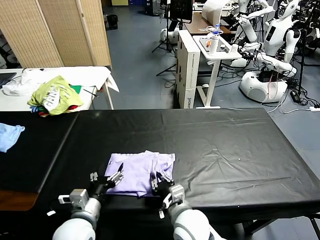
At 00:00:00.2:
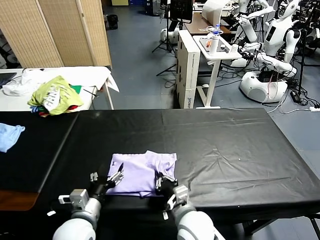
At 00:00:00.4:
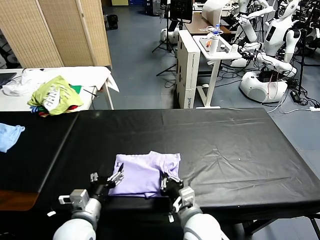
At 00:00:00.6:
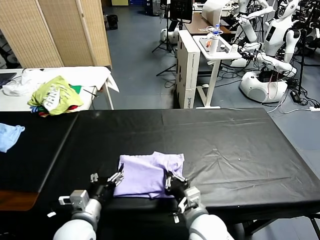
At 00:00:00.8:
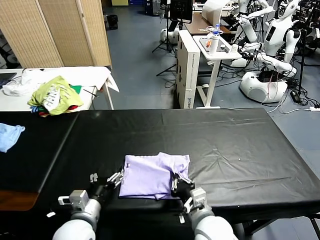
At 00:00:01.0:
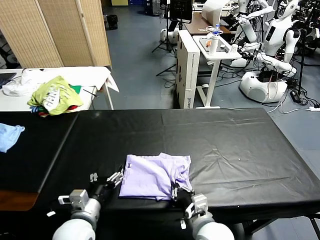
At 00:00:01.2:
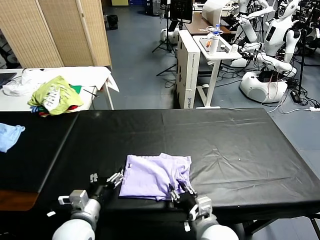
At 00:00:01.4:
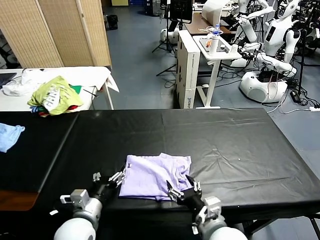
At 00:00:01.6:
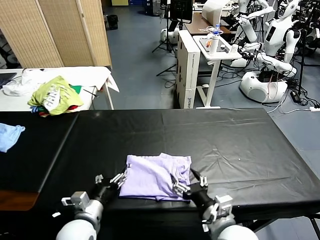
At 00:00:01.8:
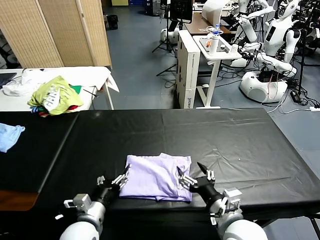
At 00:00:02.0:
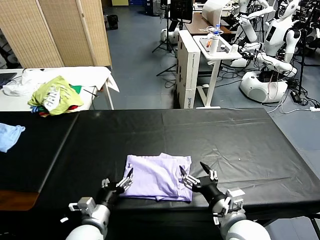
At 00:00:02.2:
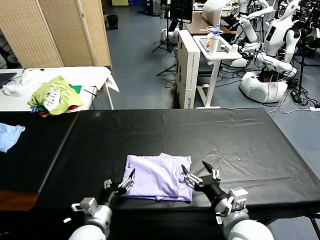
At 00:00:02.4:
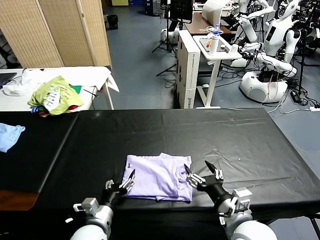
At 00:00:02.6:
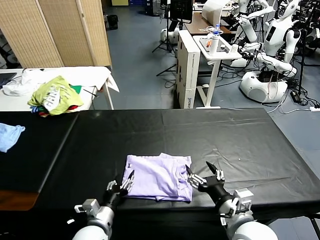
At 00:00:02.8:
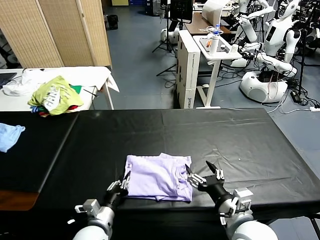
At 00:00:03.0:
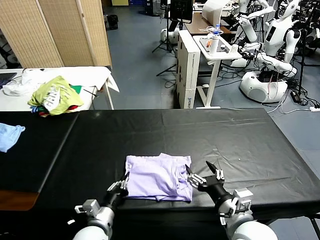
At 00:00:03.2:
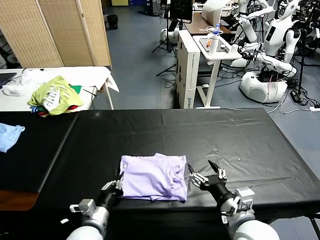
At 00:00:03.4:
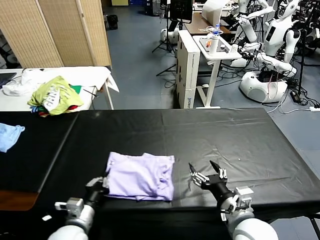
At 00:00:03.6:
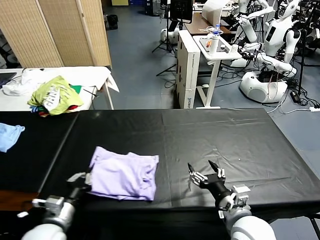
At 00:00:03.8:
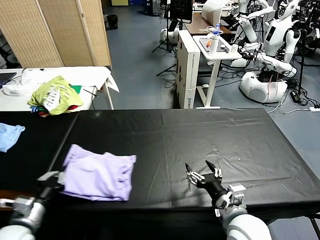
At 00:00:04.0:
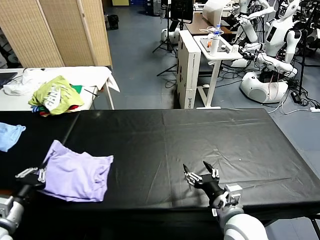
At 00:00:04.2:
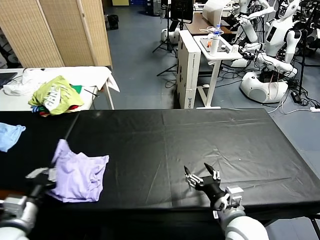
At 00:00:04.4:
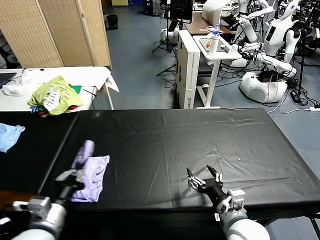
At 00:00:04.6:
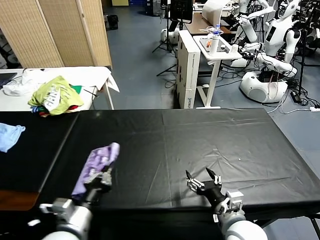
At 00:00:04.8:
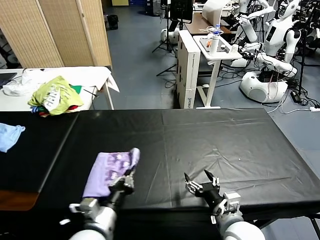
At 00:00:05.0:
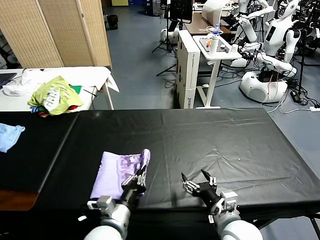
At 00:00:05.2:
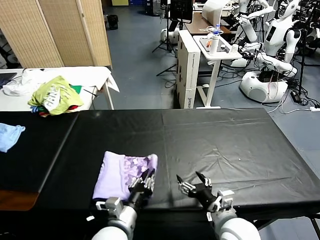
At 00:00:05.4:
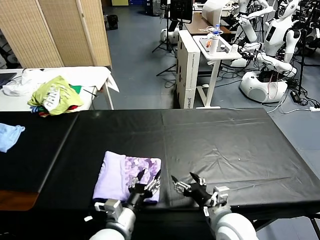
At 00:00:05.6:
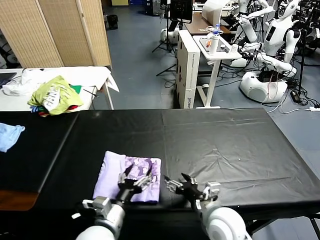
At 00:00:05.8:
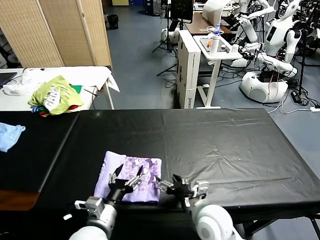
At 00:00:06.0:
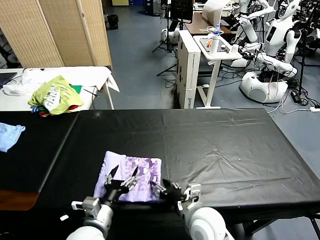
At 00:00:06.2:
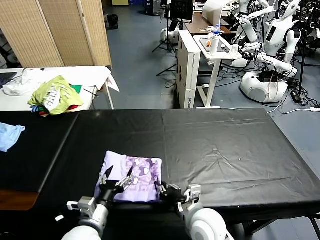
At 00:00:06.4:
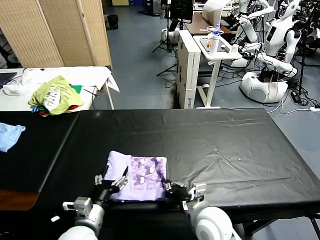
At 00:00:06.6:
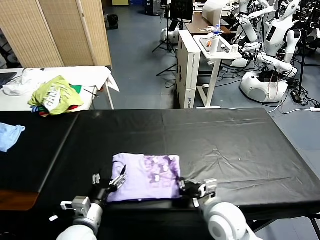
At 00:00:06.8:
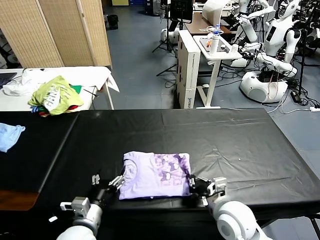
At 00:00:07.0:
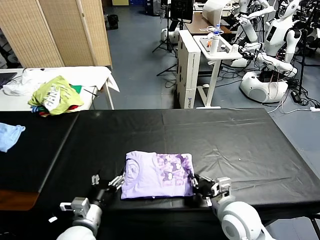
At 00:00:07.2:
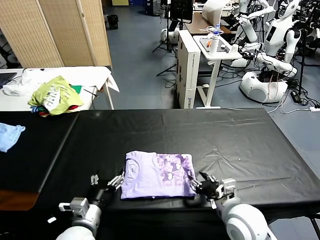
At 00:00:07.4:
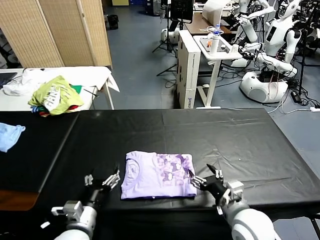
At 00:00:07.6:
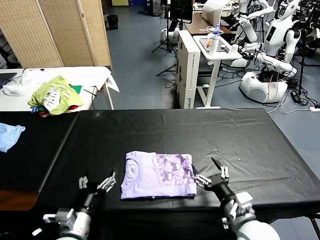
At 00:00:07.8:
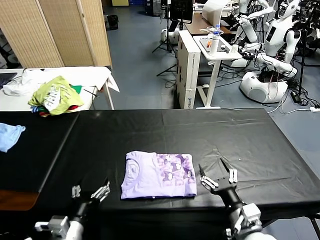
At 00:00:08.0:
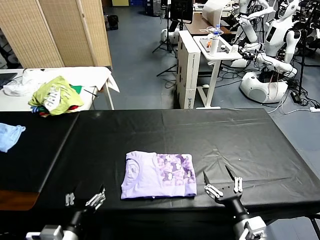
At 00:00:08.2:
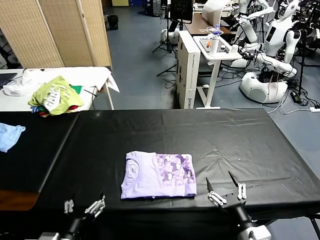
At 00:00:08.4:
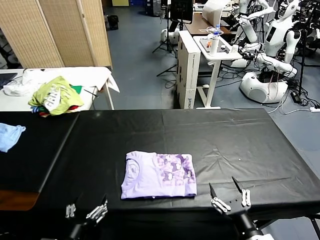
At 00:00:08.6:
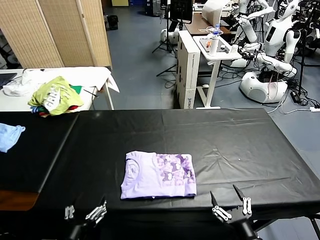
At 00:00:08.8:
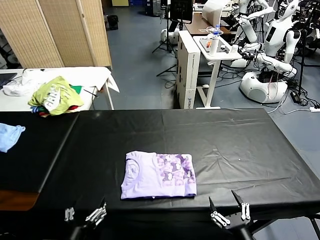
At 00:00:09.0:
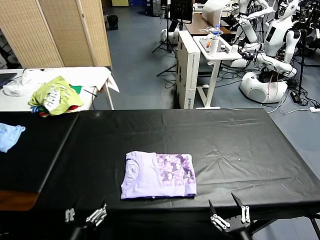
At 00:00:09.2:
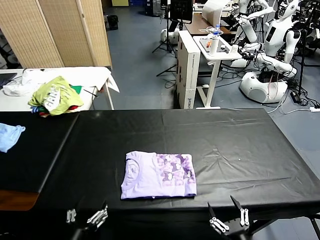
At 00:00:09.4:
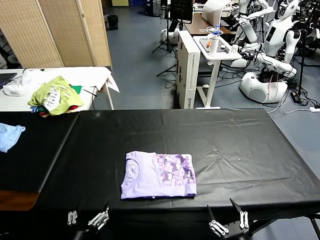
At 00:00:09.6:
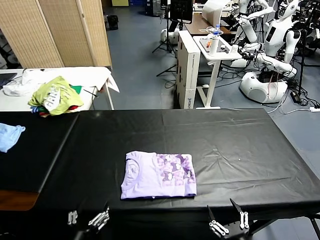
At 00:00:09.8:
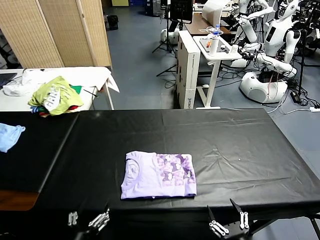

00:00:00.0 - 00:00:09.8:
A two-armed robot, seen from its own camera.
Task of the whole recording: fold and organize the clothes.
Step, 00:00:00.0 - 00:00:05.2: Flip the folded clothes over with left gripper.
Step, 00:00:05.4 - 00:00:07.2: Drag the clothes to the center of the table.
00:00:00.0 - 00:00:01.4: The right gripper heads to the right and backward, covering roughly 10 cm, and opens its fingers.
00:00:01.4 - 00:00:02.8: The right gripper moves some 5 cm; the left gripper moves downward, about 5 cm, and closes its fingers.
00:00:02.8 - 00:00:04.2: The left gripper heads to the left and upward, covering some 20 cm.
00:00:04.2 - 00:00:05.6: The left gripper shifts approximately 20 cm to the right, and opens up.
00:00:05.6 - 00:00:07.0: The right gripper closes its fingers. The left gripper travels to the left by roughly 5 cm.
00:00:07.0 - 00:00:08.4: The left gripper heads backward and upward, covering some 10 cm, while the right gripper goes about 15 cm backward and to the right, and opens up.
00:00:08.4 - 00:00:09.8: The right gripper is displaced backward by about 5 cm.

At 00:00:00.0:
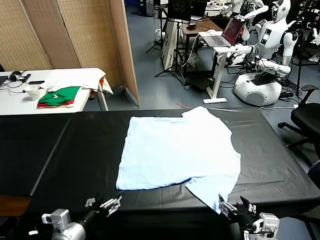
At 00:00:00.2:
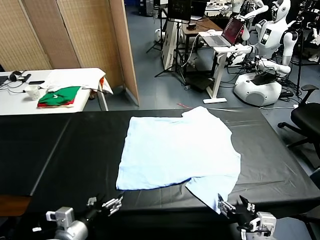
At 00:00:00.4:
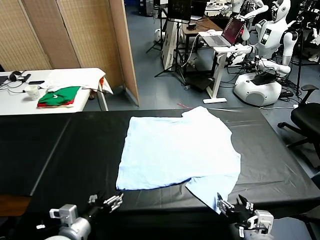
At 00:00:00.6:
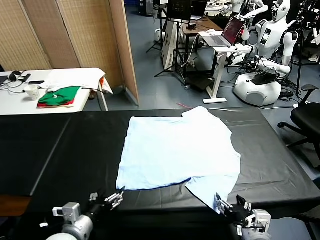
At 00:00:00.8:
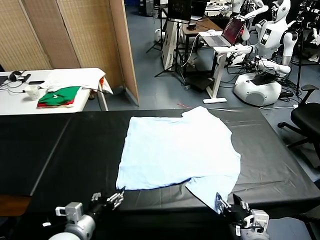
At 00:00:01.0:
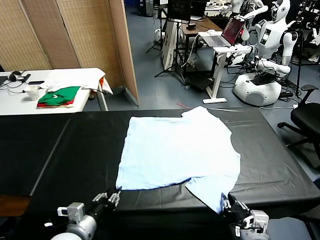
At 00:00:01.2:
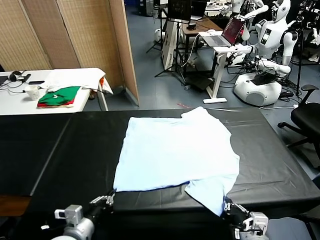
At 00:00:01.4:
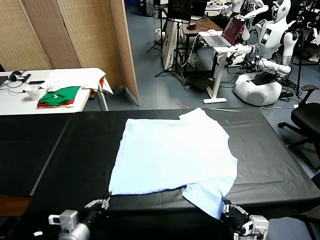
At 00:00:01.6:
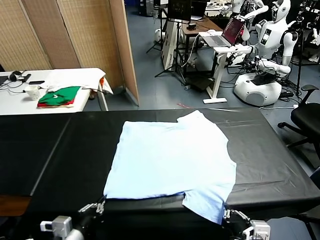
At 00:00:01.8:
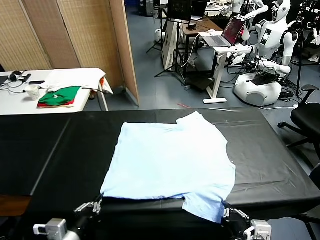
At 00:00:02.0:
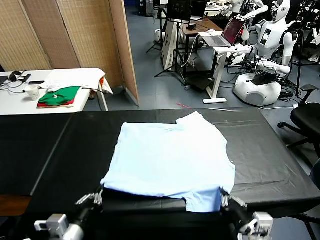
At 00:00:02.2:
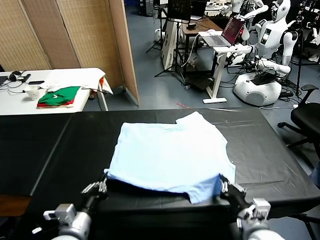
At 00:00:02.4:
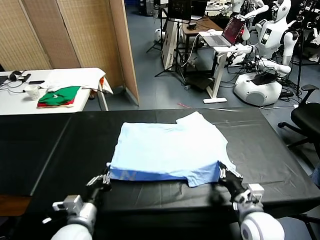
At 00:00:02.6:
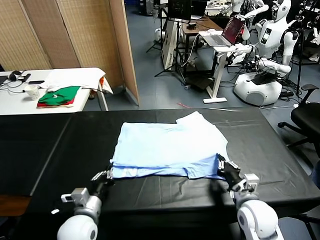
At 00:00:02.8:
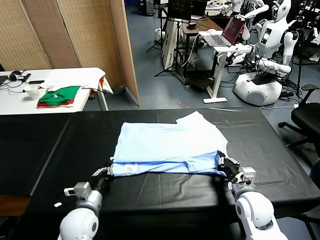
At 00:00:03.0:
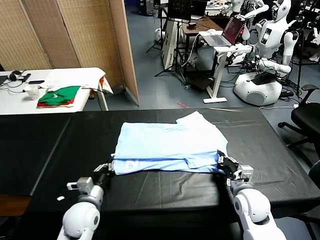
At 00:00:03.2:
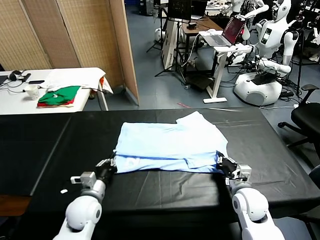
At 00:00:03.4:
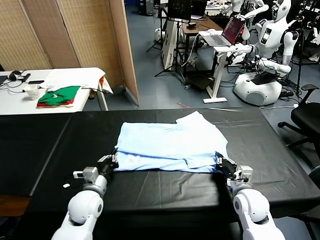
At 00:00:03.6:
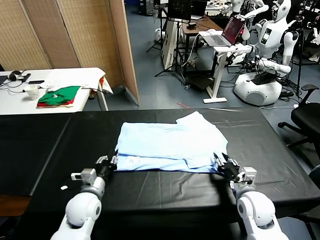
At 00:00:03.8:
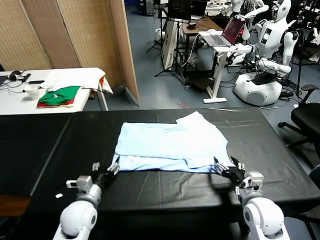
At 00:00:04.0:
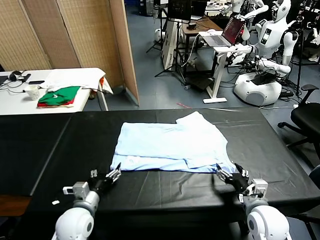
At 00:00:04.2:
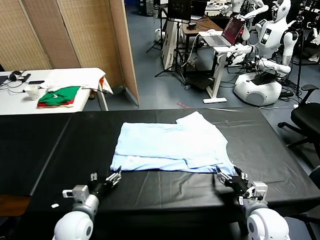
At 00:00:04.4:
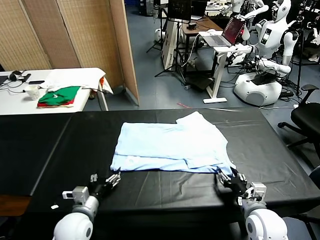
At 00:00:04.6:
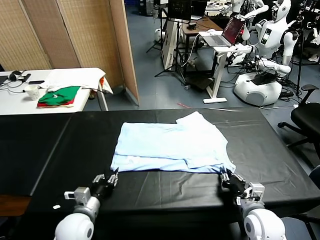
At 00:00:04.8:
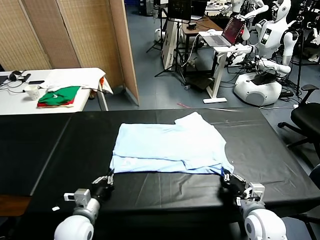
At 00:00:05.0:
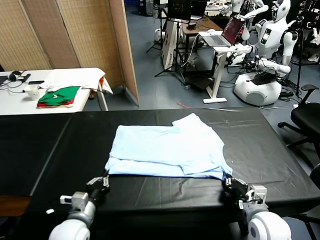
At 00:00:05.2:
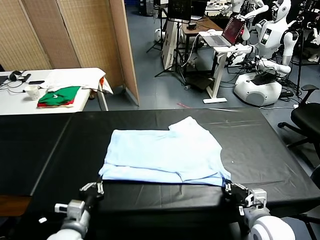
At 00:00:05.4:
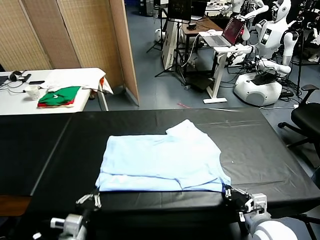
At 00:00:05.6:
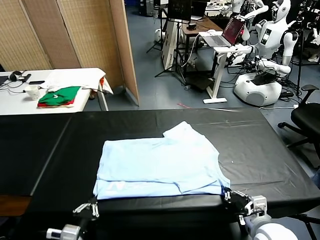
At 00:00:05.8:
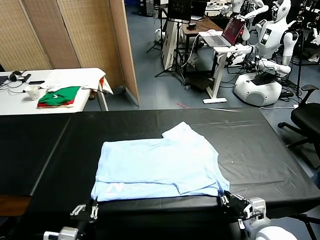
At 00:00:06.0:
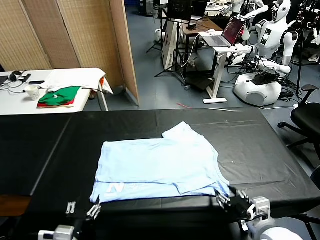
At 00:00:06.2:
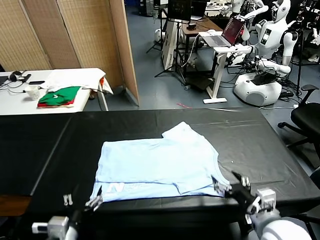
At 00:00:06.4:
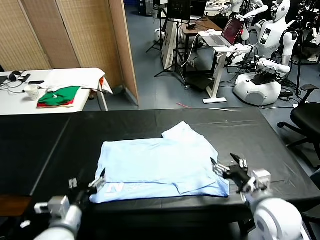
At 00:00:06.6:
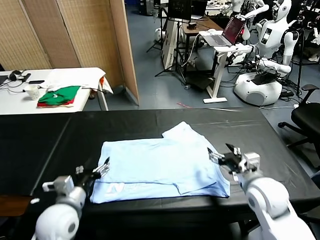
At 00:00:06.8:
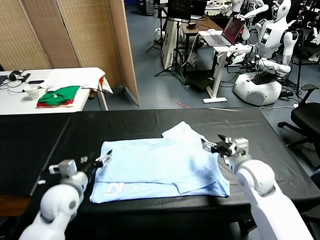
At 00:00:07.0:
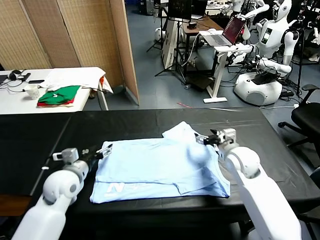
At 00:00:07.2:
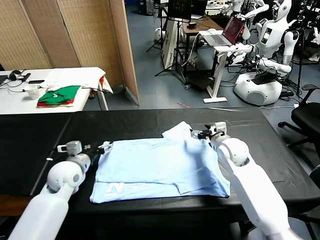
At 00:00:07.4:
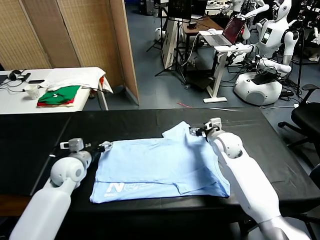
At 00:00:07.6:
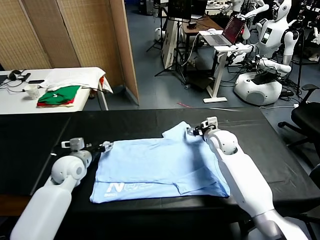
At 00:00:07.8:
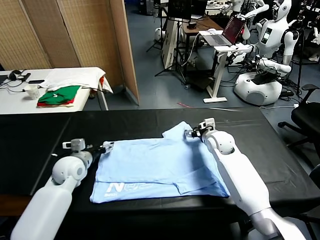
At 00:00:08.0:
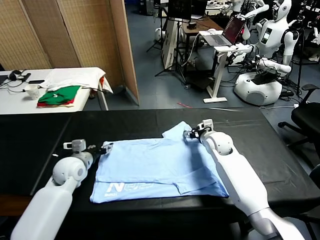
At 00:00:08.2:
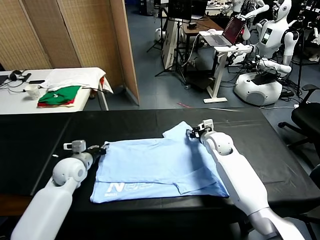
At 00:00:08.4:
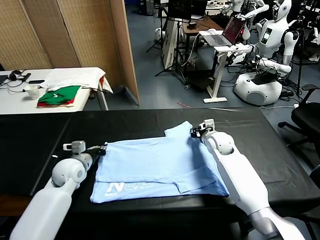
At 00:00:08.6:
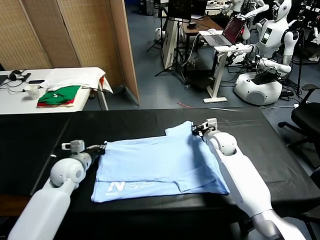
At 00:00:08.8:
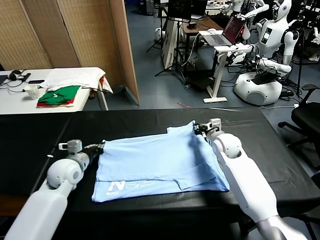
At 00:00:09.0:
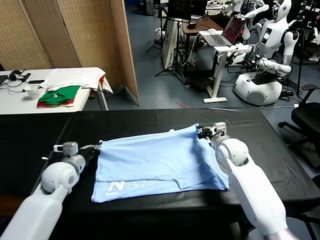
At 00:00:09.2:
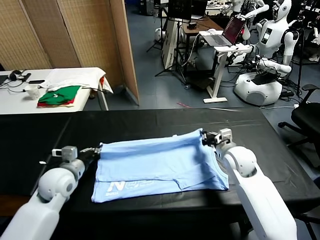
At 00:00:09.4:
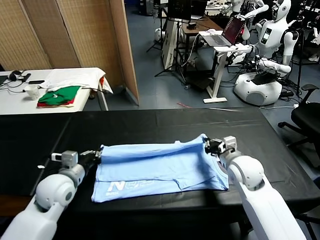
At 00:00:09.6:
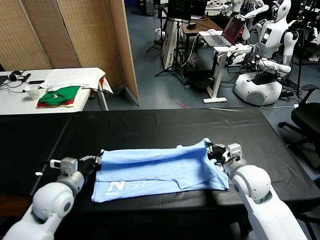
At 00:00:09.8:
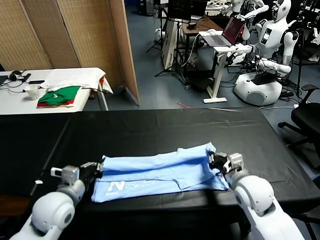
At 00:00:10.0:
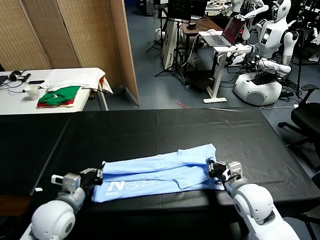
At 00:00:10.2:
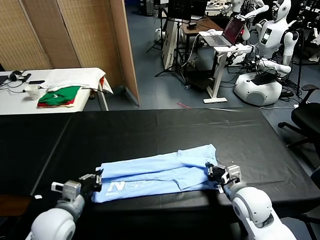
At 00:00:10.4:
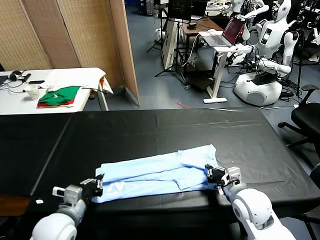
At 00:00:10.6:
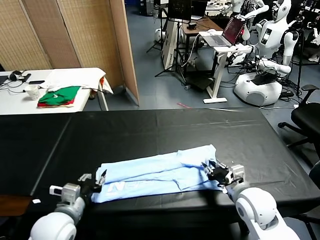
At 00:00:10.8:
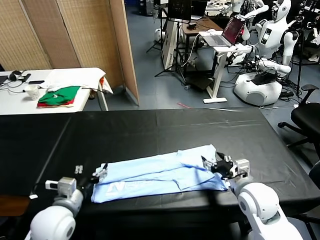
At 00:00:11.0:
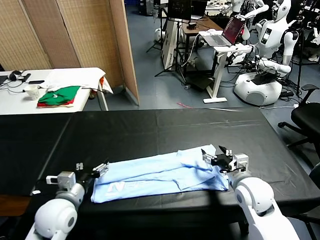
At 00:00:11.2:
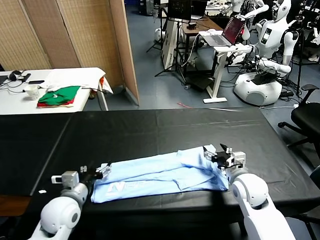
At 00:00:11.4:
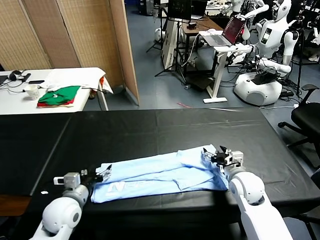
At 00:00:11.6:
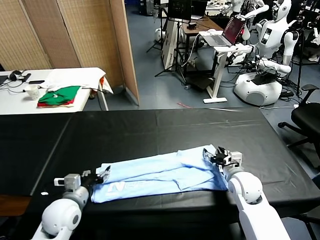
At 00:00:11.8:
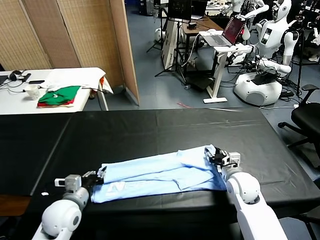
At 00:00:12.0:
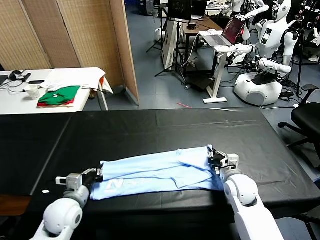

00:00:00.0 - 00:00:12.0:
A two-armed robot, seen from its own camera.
Task of the whole recording: fold and organize the clothes.
Step, 00:00:00.0 - 00:00:01.4: use both grippers simultaneously to clamp the lower edge of the clothing fabric.
Step, 00:00:01.6 - 00:00:03.8: use both grippers to drag the lower edge of the fabric forward and fold it over the upper edge.
Step, 00:00:04.0 - 00:00:06.0: Drag the clothes downward with both gripper.
Step, 00:00:06.2 - 00:00:08.4: use both grippers simultaneously to clamp the upper edge of the clothing fabric.
Step, 00:00:08.6 - 00:00:11.0: use both grippers to drag the upper edge of the fabric backward and fold it over the lower edge.
00:00:01.6 - 00:00:03.0: The right gripper travels forward and downward by approximately 20 cm. Meanwhile the left gripper is displaced forward and downward by approximately 15 cm.
00:00:03.0 - 00:00:04.4: The left gripper opens. Meanwhile the right gripper shifts some 5 cm backward, and opens, then closes once more.
00:00:04.4 - 00:00:06.0: The left gripper is displaced backward and upward by about 15 cm, and closes, then reopens; the right gripper is displaced upward by approximately 10 cm, and opens.
00:00:06.0 - 00:00:07.6: The two grippers go roughly 30 cm forward.
00:00:07.6 - 00:00:09.0: The right gripper travels backward by approximately 10 cm, and closes. The left gripper closes its fingers.
00:00:09.0 - 00:00:10.4: Both grippers move backward, some 15 cm.
00:00:10.4 - 00:00:12.0: The left gripper moves forward, some 5 cm, and opens and closes again. Meanwhile the right gripper travels forward and downward by roughly 10 cm, and opens, then closes once more.
